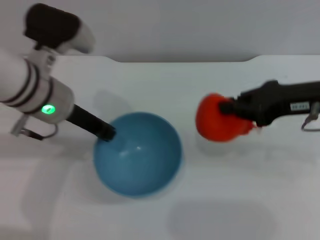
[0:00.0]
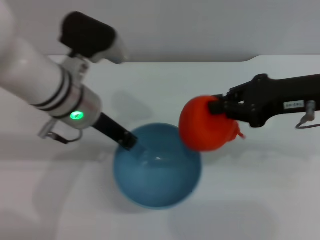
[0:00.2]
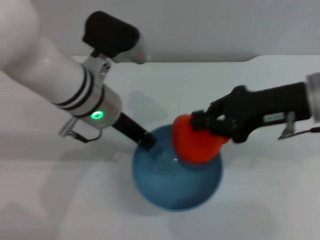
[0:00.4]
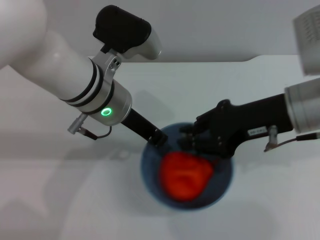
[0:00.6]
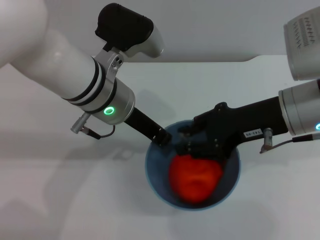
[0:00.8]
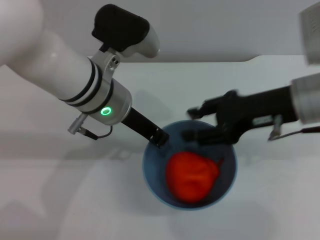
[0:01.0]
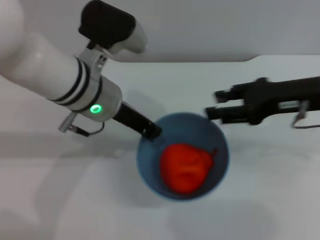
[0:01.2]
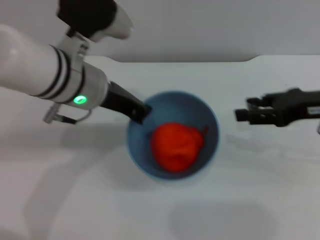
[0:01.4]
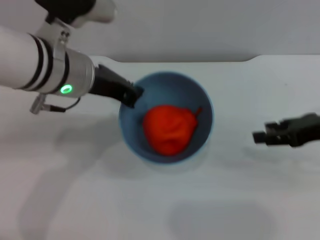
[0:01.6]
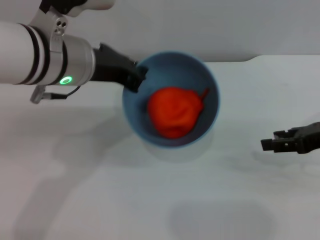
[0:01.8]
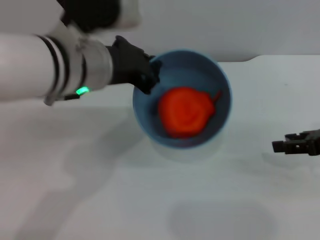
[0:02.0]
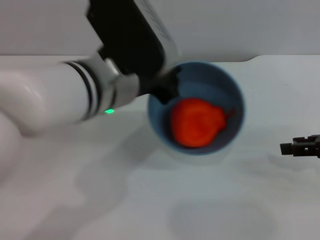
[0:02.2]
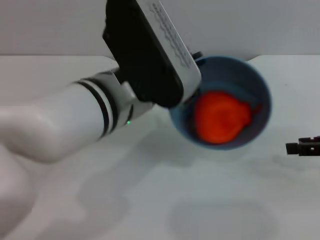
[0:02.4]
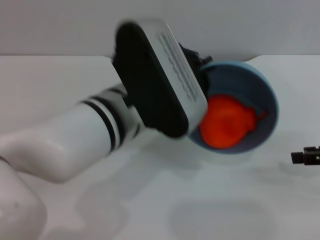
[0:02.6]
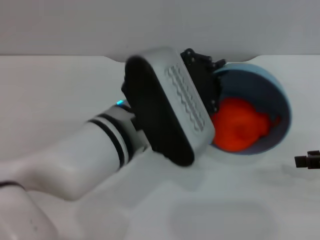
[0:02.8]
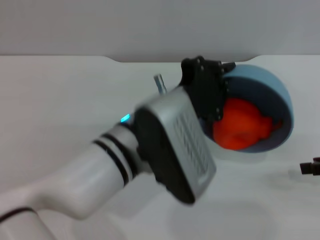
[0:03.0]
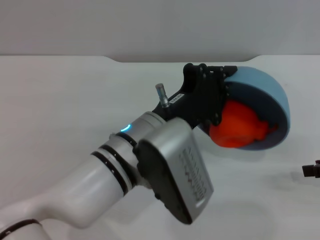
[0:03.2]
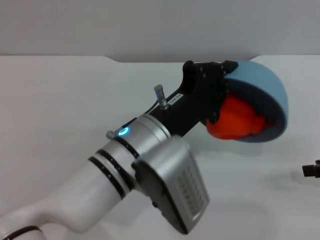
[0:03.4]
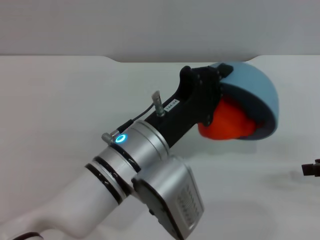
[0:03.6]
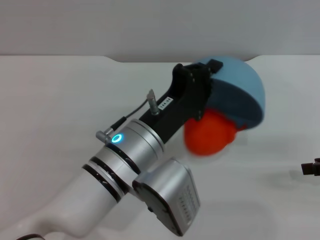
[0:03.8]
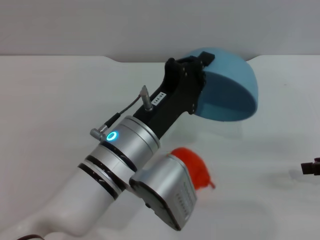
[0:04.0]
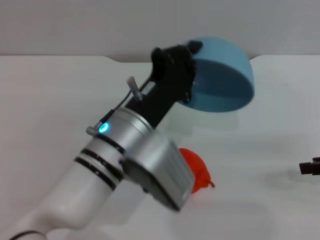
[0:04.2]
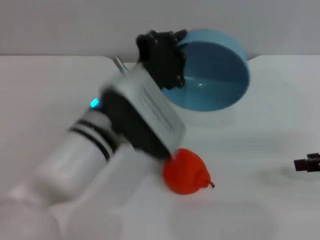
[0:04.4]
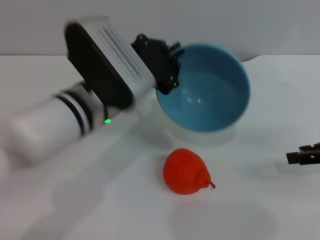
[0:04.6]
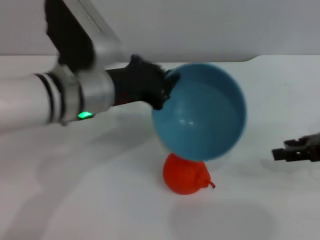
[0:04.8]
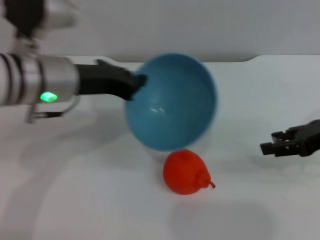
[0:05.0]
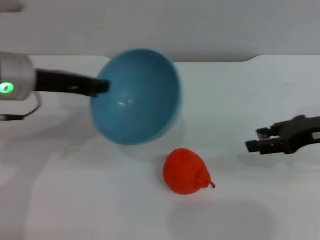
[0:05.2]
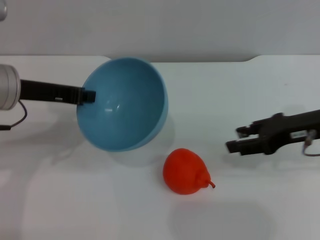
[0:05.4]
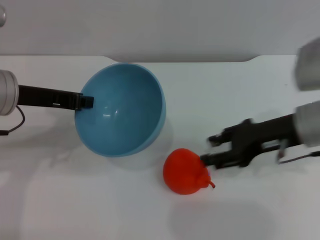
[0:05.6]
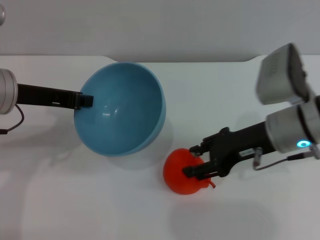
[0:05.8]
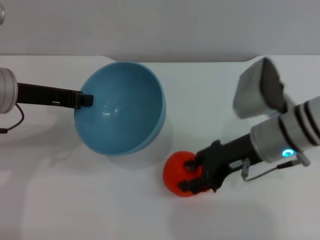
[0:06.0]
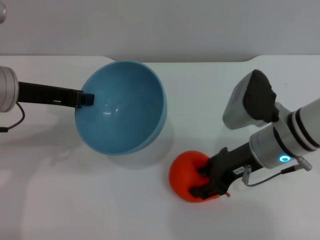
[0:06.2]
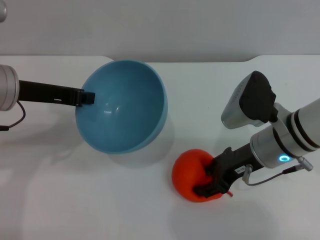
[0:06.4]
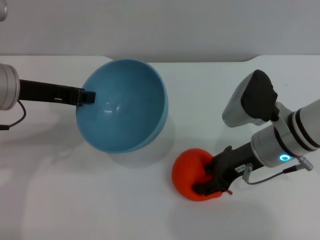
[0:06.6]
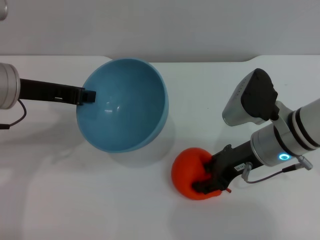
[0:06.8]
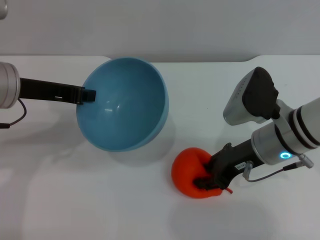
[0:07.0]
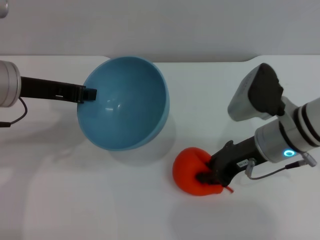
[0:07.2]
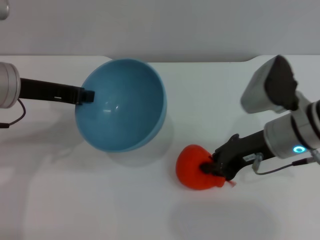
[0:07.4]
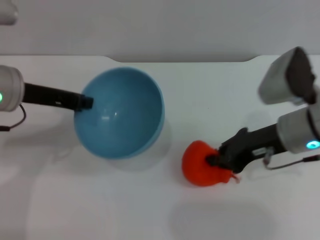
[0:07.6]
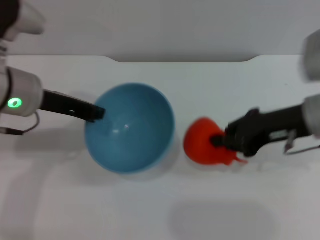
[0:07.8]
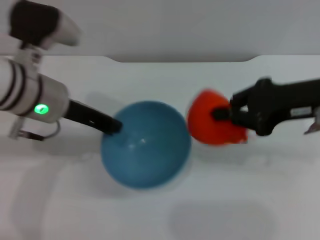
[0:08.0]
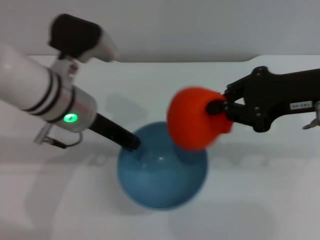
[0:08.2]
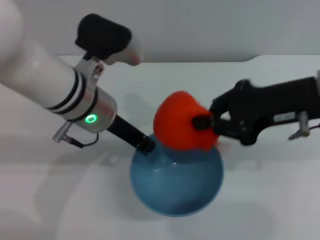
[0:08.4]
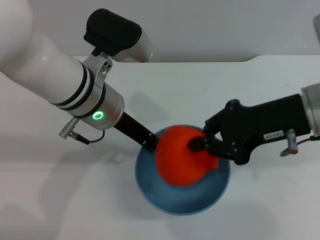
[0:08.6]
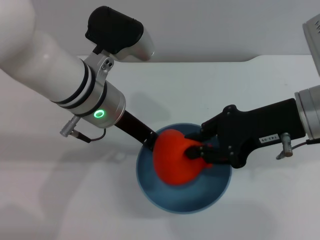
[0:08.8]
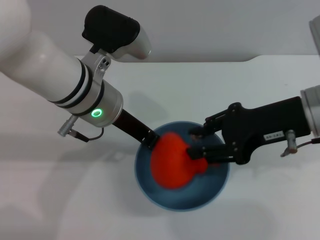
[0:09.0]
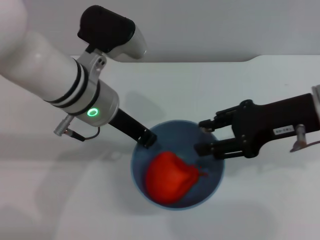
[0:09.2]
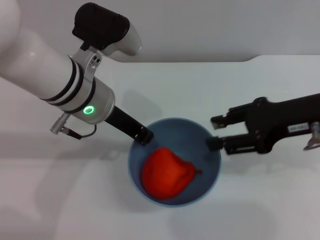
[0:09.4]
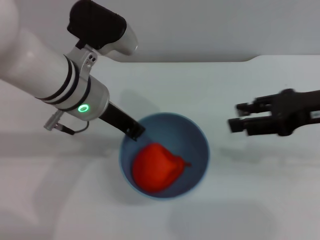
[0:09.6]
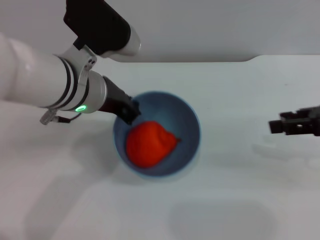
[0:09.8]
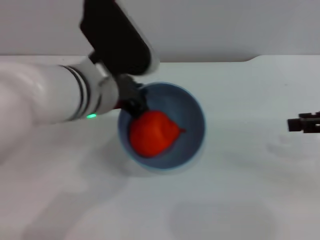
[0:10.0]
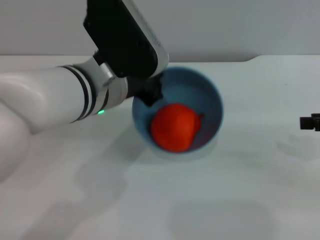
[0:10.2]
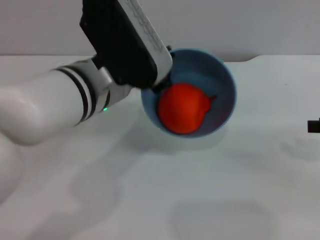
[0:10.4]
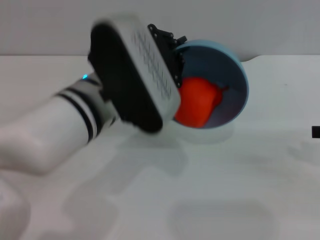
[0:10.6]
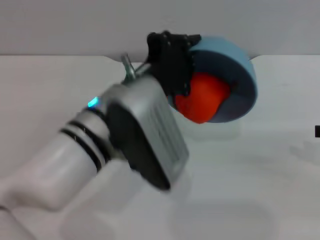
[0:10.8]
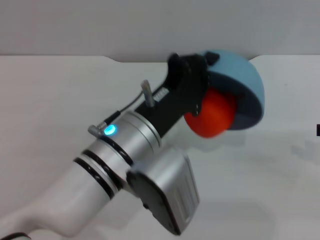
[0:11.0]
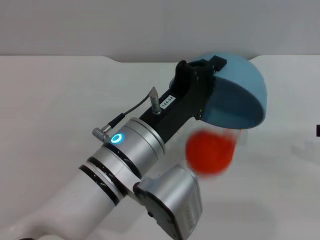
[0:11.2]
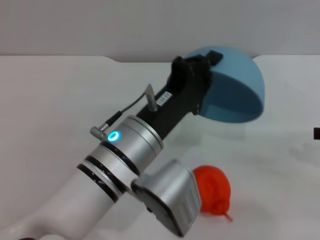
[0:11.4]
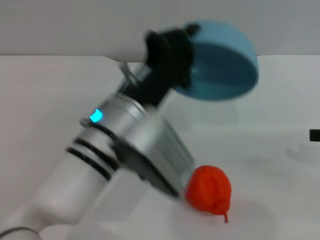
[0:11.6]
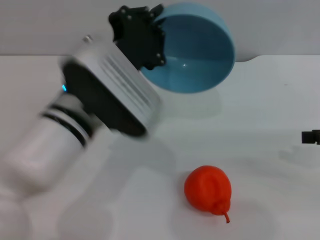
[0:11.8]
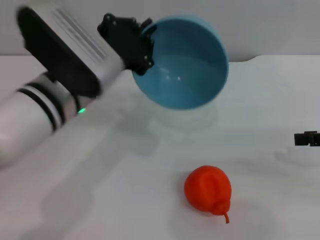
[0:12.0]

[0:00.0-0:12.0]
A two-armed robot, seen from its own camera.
Task of the whole recording: put the orange into the blue bowl and pour it out repeatedly.
Step, 0:00.2 to 0:01.0: Place the orange into the bowl.
Step, 0:01.2 to 0:04.2: Pour the orange out of the bowl.
Step, 0:04.4 to 0:07.8: Pick up the orange with the right gripper.
Step, 0:08.2 to 0:09.2: Place the orange into the bowl.
Step, 0:09.4 to 0:11.4: Pour the orange out of the bowl.
0:00.0 to 0:01.6: The right gripper heads to the right, covering approximately 5 cm, and opens its fingers.
0:01.6 to 0:03.0: The right gripper moves to the right, about 5 cm, while the left gripper goes roughly 15 cm to the right, backward and downward.
0:04.4 to 0:06.0: The grippers both shift to the left by some 15 cm.
0:06.0 to 0:07.6: The right gripper closes its fingers.
0:07.6 to 0:09.0: The right gripper is displaced upward by about 5 cm, while the left gripper heads to the right, covering roughly 10 cm.
0:09.0 to 0:10.4: The left gripper shifts by approximately 5 cm. The right gripper is displaced to the right by some 15 cm, and opens.

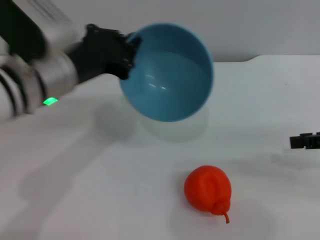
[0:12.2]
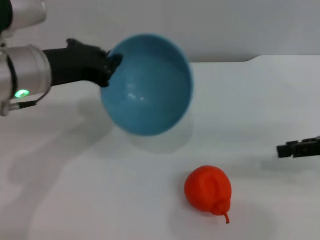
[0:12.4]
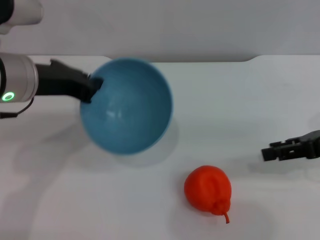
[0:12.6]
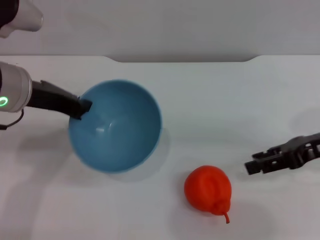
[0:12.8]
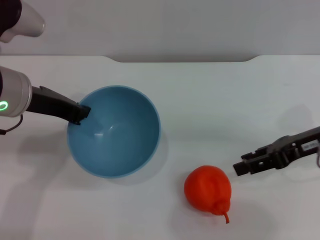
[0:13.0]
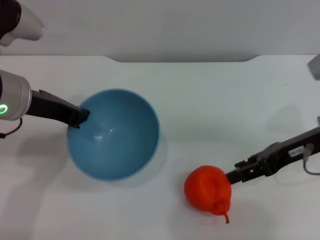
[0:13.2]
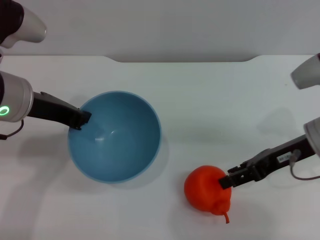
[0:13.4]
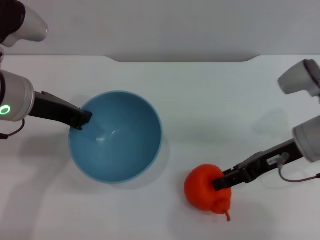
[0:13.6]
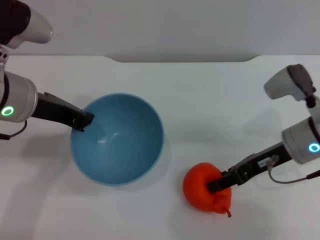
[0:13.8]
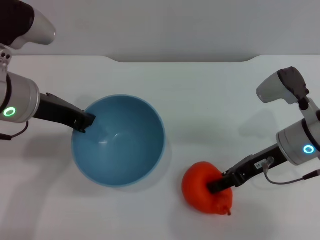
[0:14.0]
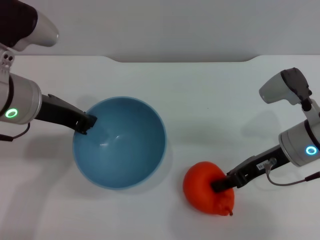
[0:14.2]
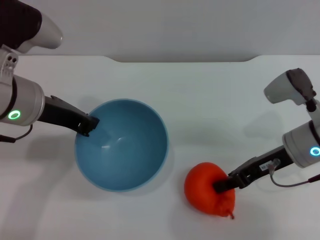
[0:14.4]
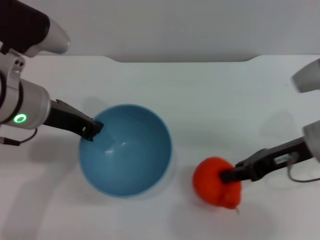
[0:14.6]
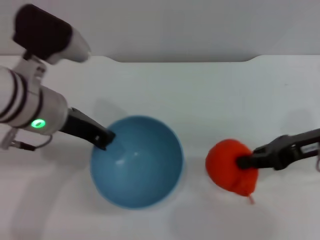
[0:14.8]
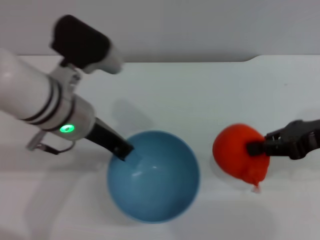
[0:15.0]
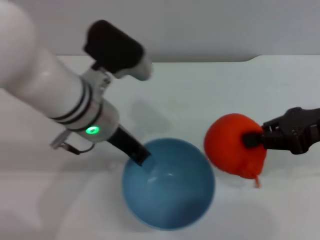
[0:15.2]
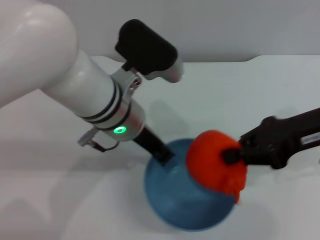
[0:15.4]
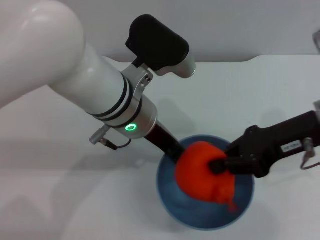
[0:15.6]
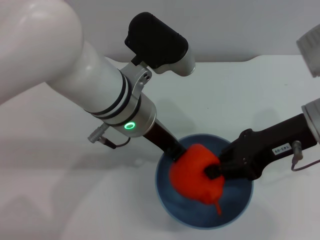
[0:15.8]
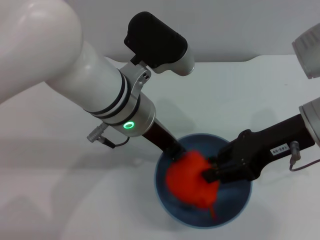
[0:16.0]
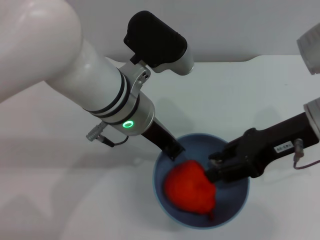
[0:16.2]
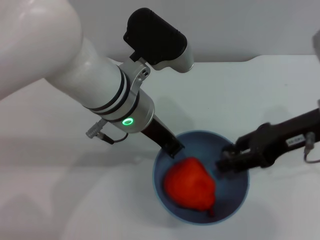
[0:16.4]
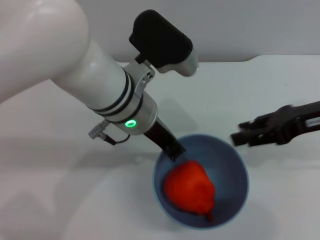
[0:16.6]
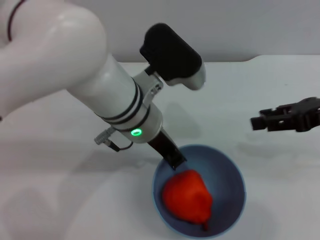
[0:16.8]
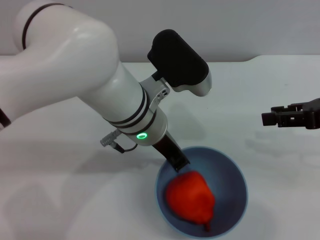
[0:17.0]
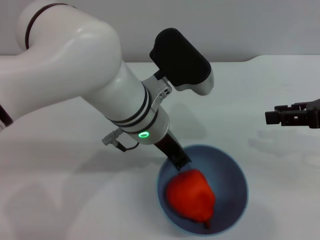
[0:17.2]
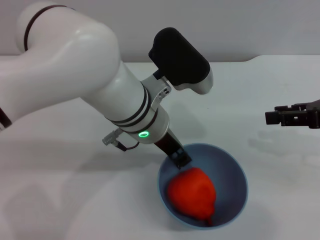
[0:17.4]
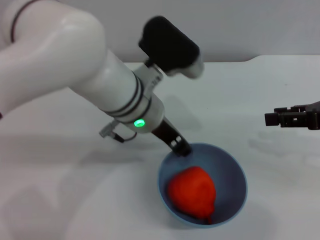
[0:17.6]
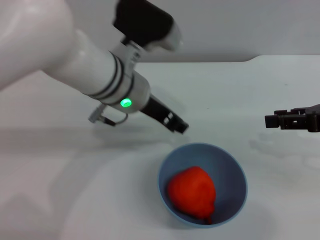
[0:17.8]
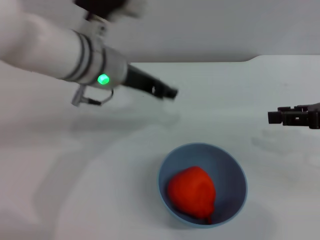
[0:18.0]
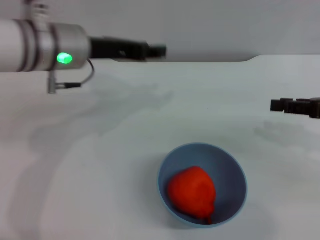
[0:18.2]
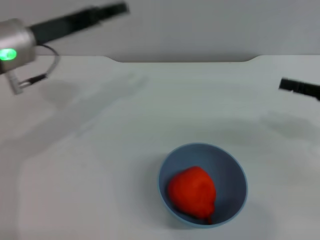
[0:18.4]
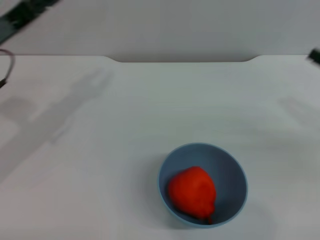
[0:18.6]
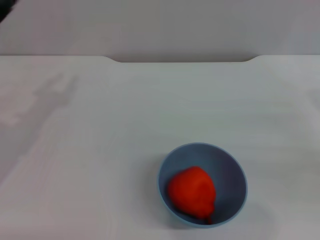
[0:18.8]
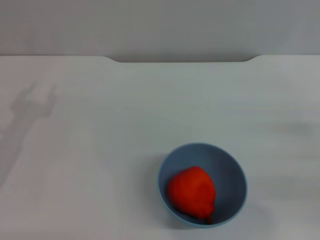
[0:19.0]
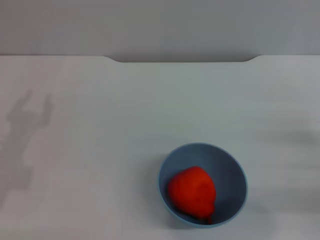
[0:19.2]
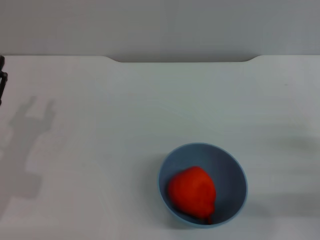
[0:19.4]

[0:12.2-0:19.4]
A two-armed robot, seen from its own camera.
Task of the whole recording: put the orange into the blue bowl and pour it out repeatedly.
Step, 0:12.2 to 0:15.0: Pick up the orange with the right gripper.
Step, 0:15.2 to 0:16.4: Place the orange into the bowl.
Step, 0:16.8 to 0:17.8: Place the bowl on the table.
0:12.2 to 0:13.6: The right gripper travels to the left and downward by approximately 15 cm.
0:13.6 to 0:15.0: The right gripper heads upward and to the right, covering roughly 10 cm, and closes. The left gripper is displaced to the right by about 5 cm.
0:15.0 to 0:16.6: The left gripper shifts some 10 cm to the right; the right gripper opens.
0:16.6 to 0:18.0: The left gripper moves roughly 5 cm, and opens its fingers, while the right gripper goes roughly 5 cm to the right.
0:18.0 to 0:19.4: The right gripper moves downward and backward, some 15 cm, while the left gripper travels to the left, downward and backward by about 25 cm.
